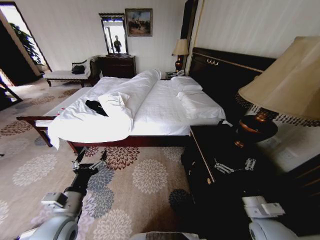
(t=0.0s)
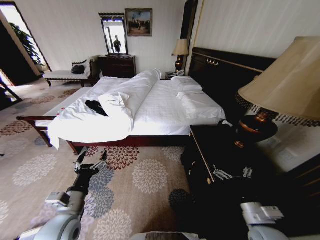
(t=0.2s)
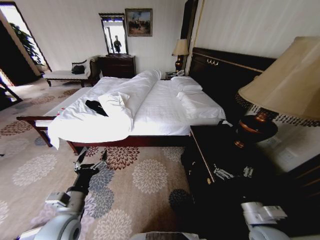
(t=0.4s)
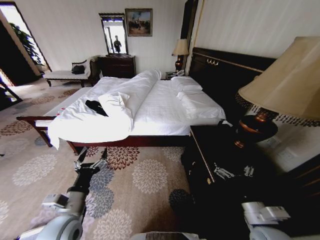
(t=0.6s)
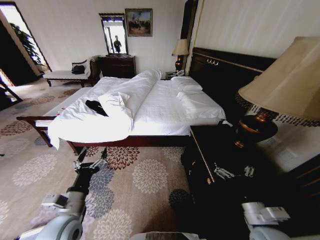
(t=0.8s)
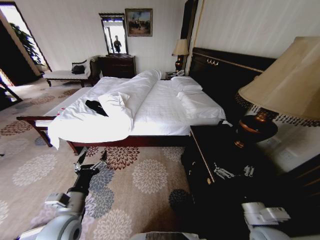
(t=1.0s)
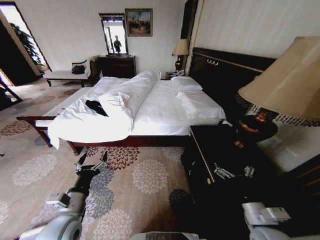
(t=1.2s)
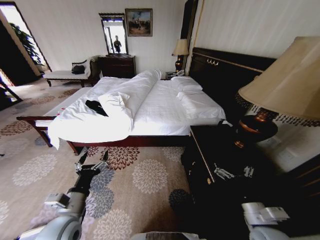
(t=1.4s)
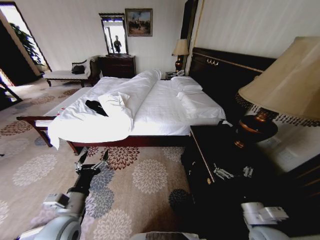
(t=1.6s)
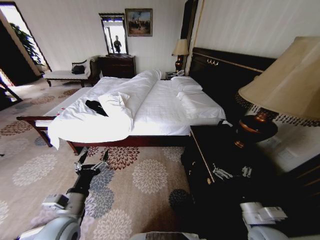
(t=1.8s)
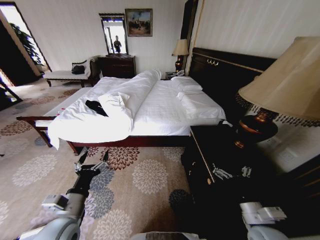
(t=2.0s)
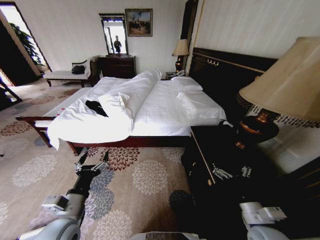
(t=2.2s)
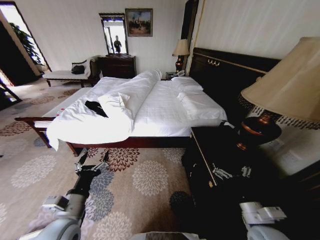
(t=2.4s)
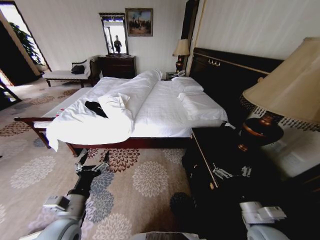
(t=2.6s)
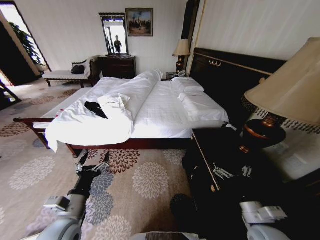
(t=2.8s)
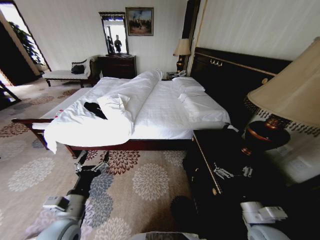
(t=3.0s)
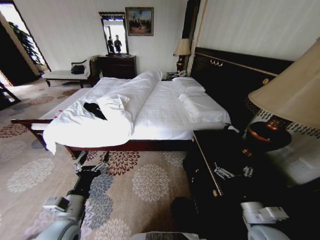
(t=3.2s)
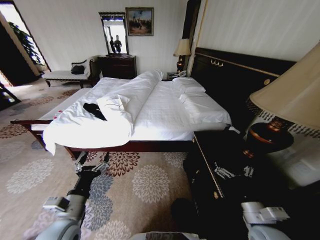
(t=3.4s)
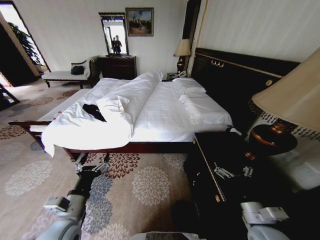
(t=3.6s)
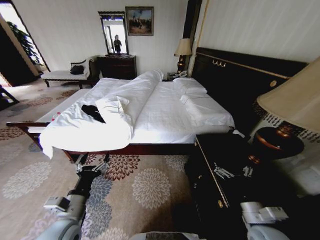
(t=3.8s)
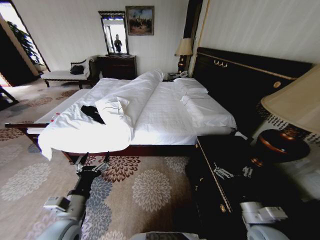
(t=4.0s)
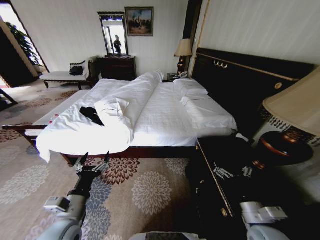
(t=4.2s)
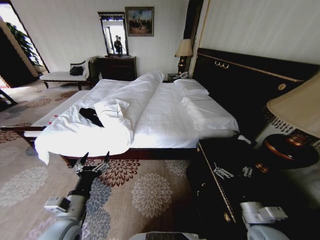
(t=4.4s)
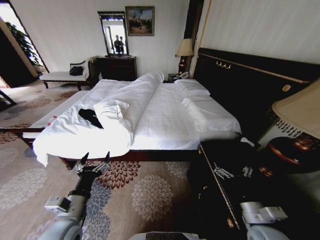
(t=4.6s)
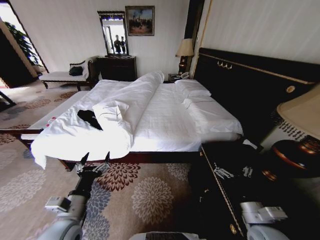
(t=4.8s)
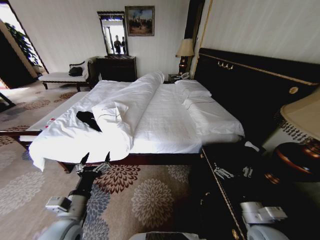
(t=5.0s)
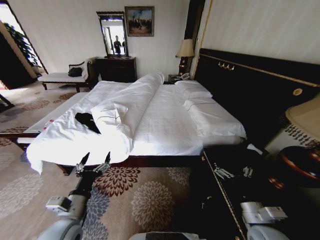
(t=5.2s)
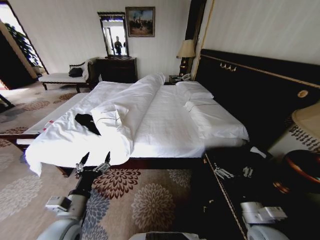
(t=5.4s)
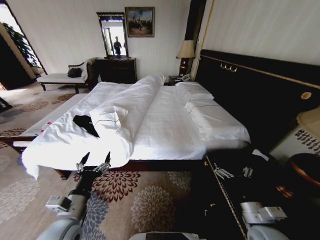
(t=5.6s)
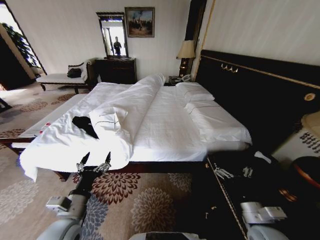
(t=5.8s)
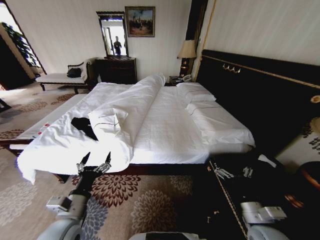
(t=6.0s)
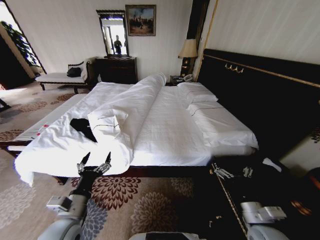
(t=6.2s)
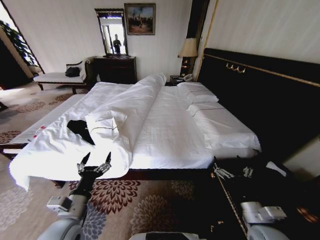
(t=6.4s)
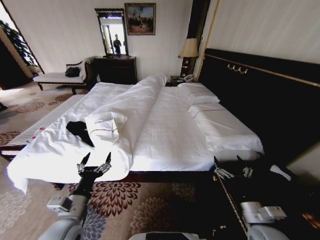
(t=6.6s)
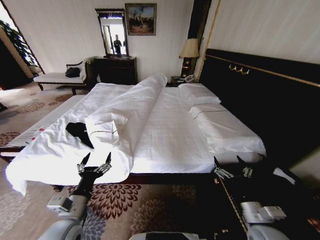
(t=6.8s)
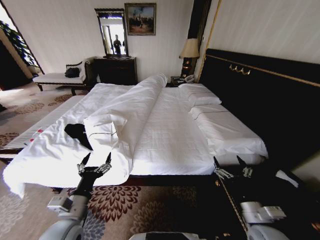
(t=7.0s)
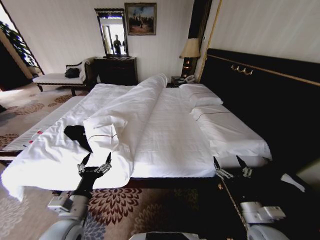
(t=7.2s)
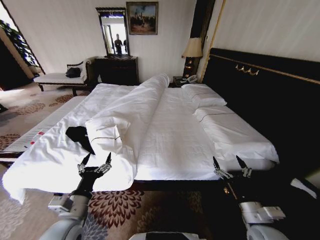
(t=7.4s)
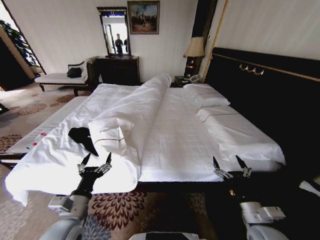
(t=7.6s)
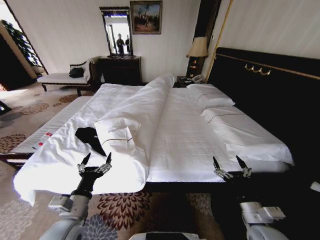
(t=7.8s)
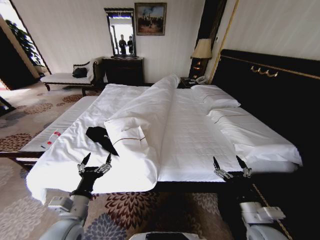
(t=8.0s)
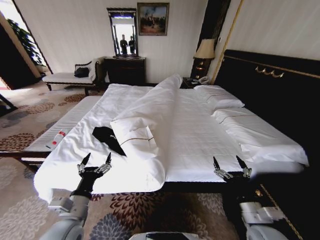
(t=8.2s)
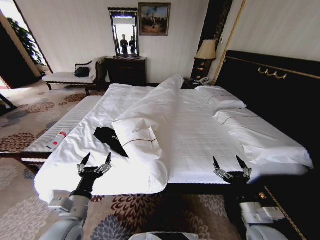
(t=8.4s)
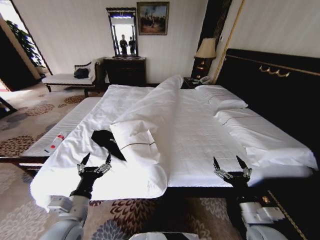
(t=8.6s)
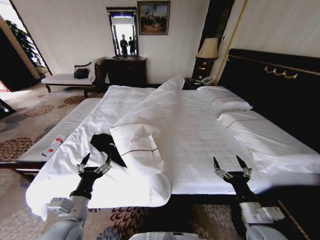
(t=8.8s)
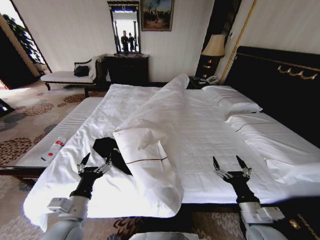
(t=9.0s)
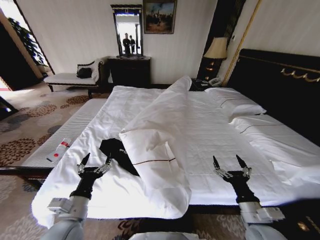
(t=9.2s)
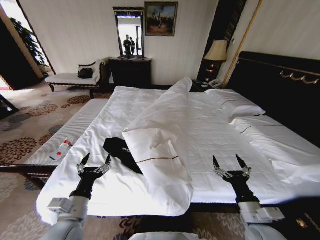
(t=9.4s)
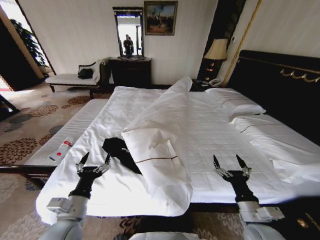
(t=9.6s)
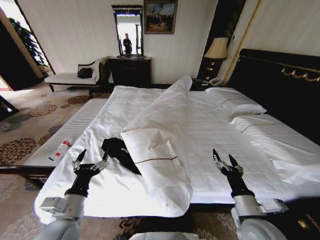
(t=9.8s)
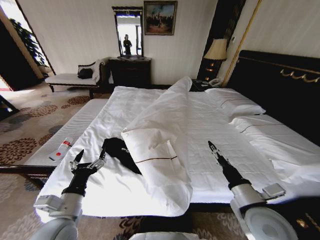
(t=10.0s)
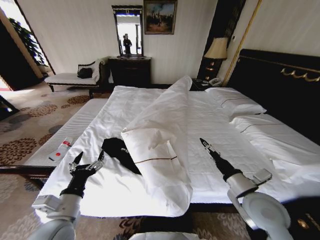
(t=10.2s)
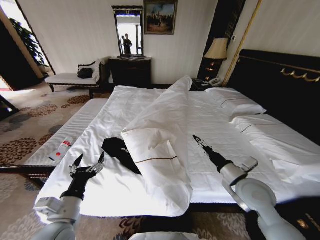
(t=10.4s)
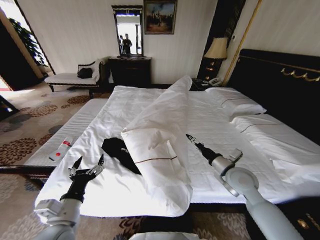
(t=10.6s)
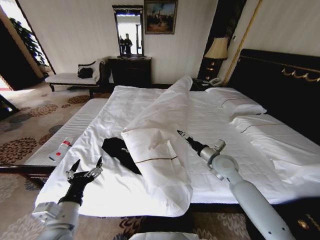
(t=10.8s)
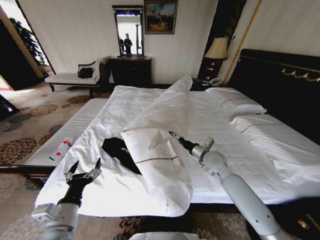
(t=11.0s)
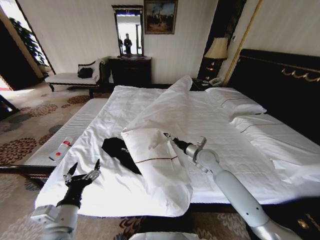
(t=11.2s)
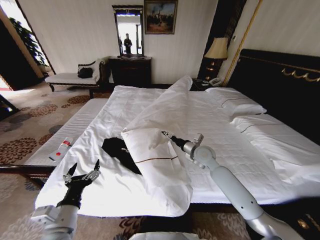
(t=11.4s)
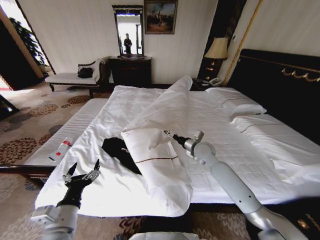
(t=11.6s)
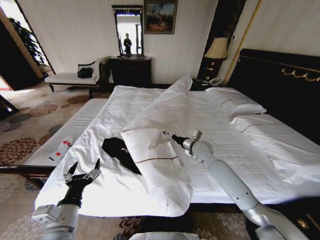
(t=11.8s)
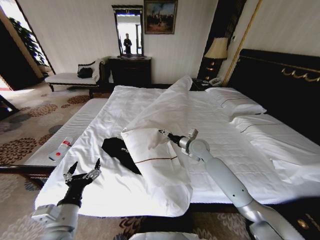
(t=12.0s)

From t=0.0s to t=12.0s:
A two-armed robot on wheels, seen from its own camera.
Task of the whole recording: Fold the clothes on the bed.
From t=1.6s to t=3.0s: Neither gripper changes place.
From t=9.0s to t=10.4s: The right gripper moves forward and upward, approximately 15 cm.
From t=10.4s to t=12.0s: The right gripper is displaced forward and to the left by approximately 25 cm.

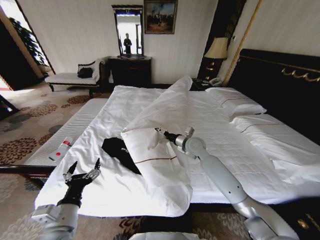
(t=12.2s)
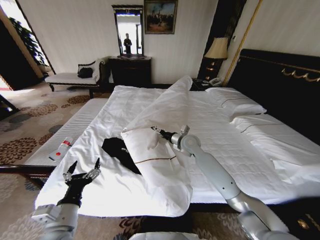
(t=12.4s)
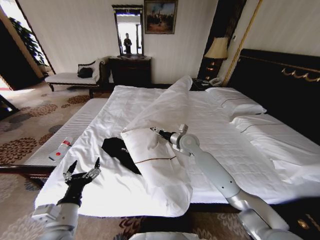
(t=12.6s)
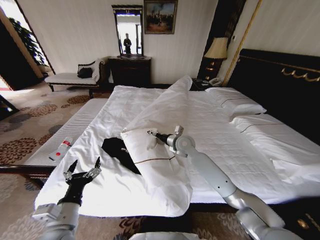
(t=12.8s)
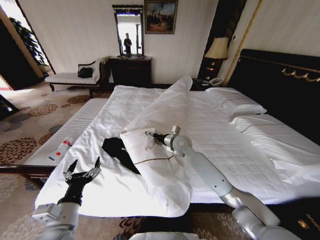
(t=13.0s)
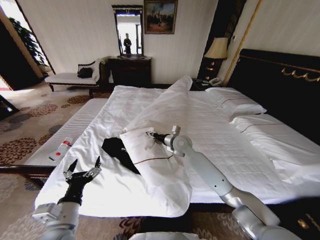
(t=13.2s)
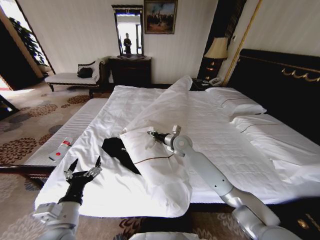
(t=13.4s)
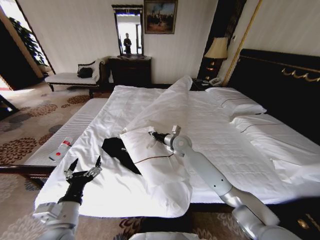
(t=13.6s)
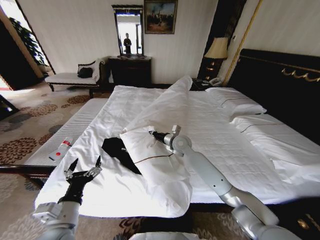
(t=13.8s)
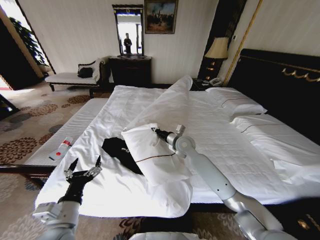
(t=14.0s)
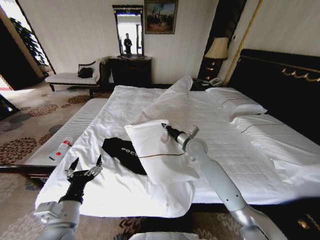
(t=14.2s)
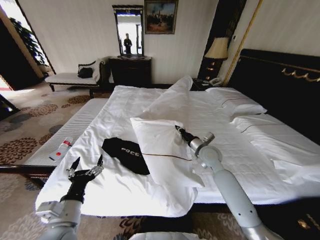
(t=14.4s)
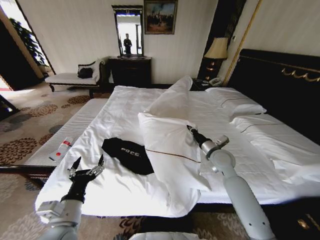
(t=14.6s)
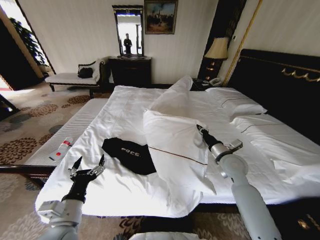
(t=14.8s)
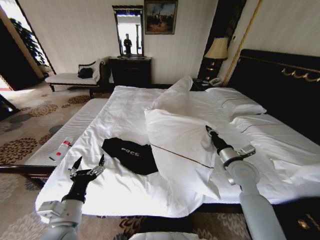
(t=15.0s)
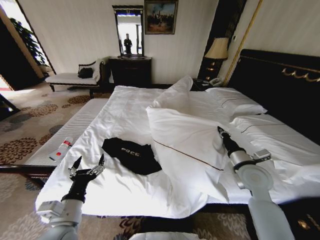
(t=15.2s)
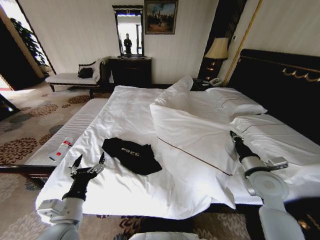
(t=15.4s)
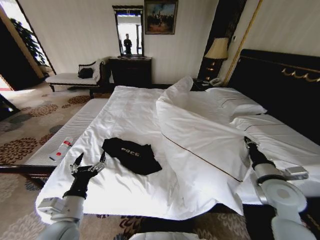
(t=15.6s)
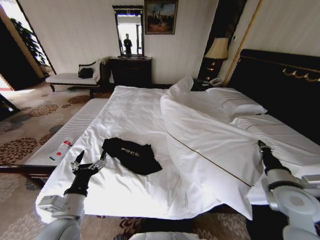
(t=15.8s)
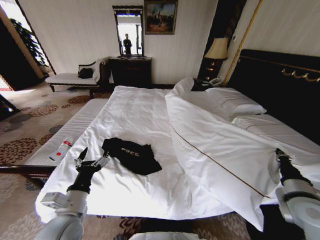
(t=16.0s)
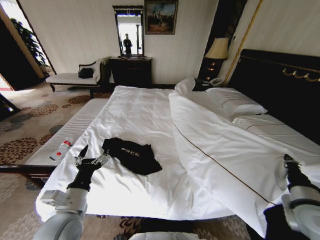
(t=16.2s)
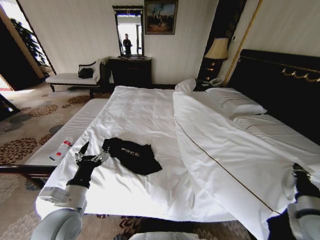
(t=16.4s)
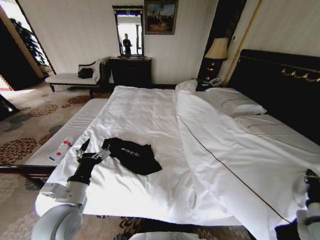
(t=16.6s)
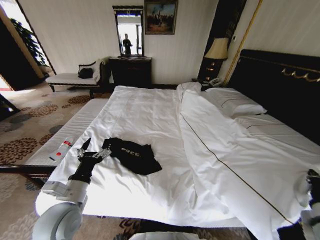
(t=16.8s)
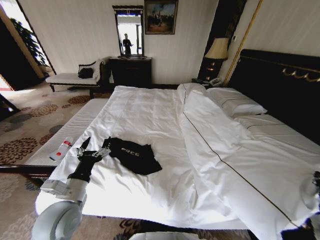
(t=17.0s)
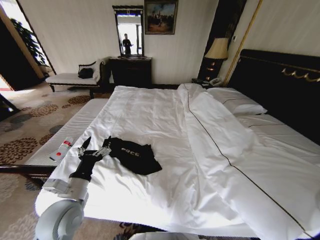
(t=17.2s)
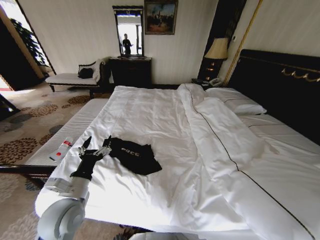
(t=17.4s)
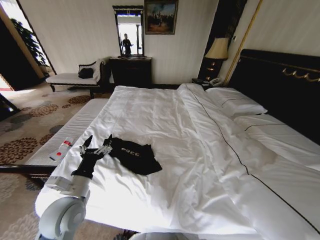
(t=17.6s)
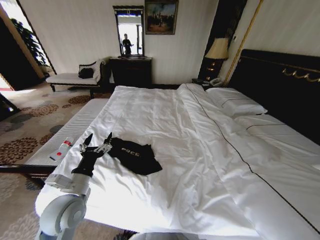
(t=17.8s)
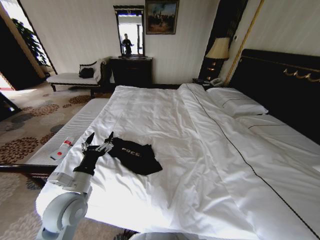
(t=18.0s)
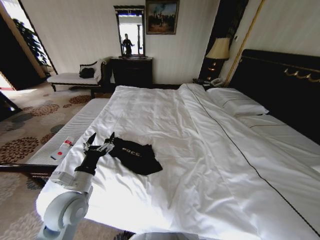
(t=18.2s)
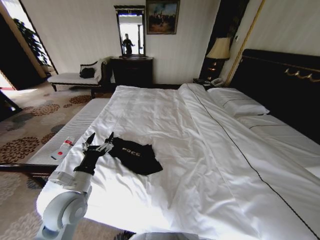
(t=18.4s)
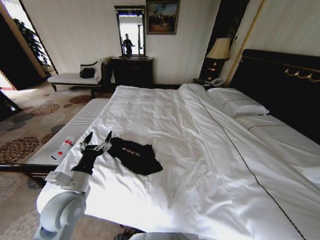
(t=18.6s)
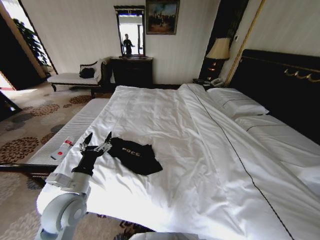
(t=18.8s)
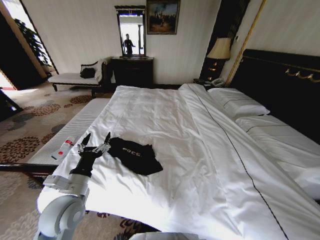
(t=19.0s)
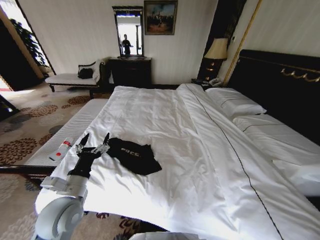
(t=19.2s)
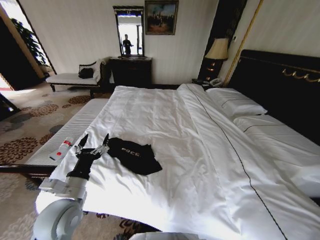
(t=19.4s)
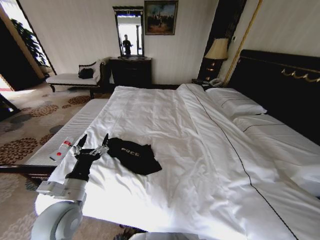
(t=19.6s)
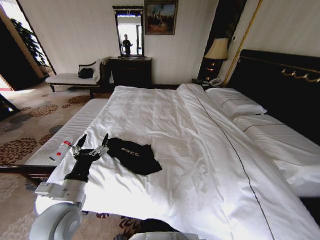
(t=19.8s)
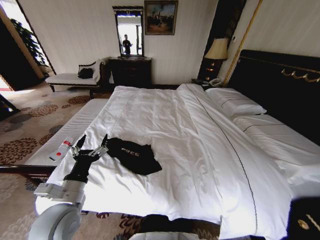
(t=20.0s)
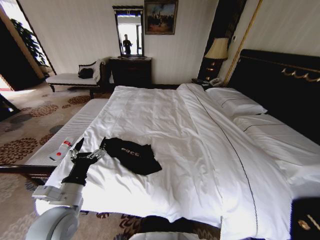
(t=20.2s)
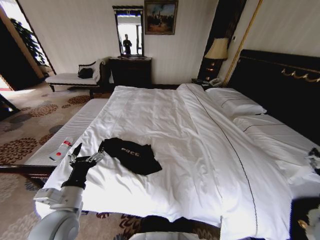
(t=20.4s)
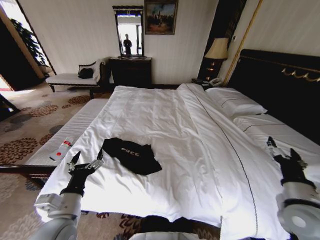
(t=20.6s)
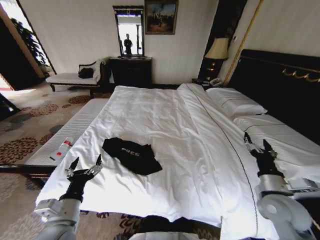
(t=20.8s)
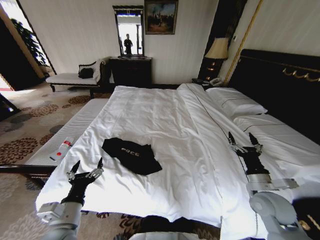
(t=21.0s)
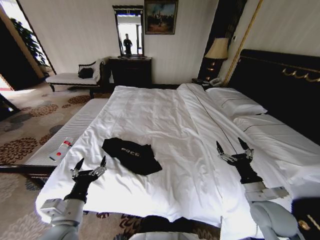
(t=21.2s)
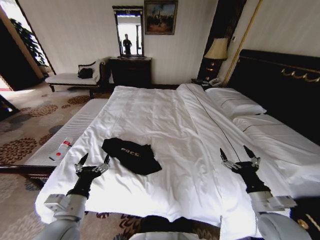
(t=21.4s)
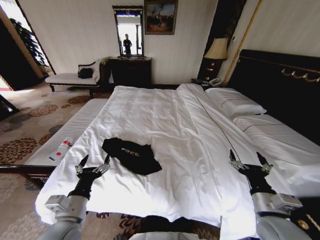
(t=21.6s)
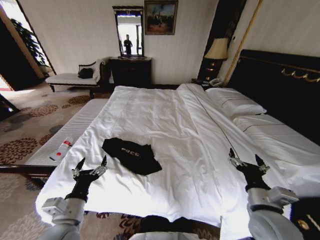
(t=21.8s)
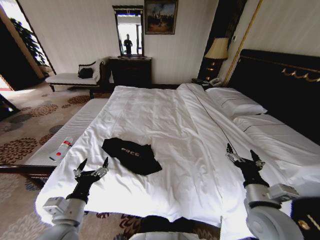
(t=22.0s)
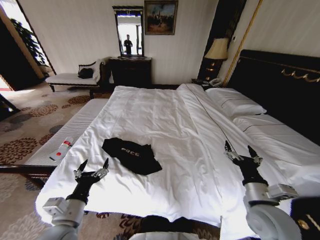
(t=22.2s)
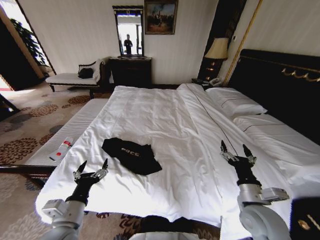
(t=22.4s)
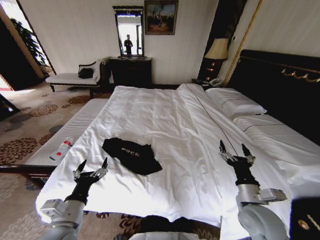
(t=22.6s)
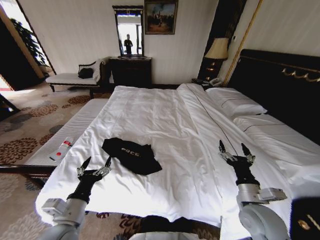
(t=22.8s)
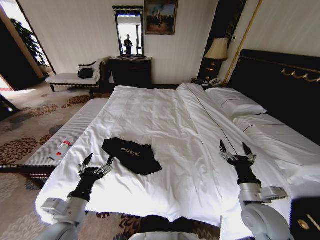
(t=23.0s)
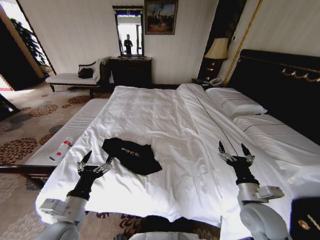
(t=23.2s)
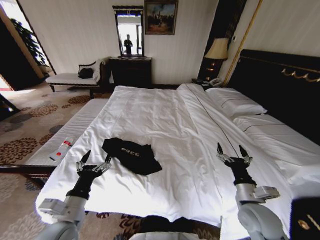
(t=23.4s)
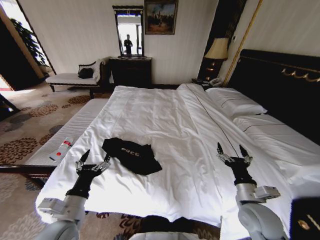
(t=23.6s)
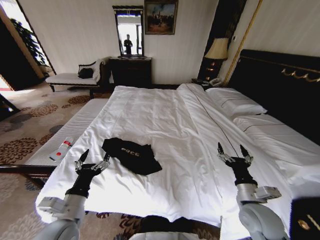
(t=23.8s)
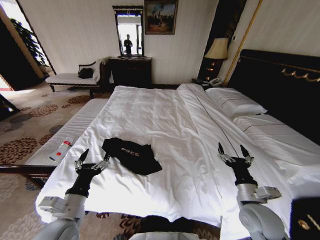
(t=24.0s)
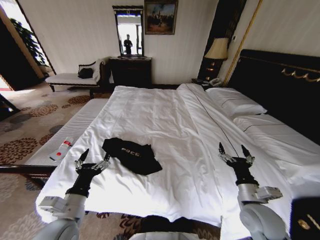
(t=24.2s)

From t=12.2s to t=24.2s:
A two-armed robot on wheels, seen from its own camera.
Task of the whole recording: Fold the clothes on the bed.
From t=12.2s to t=13.8s: The right gripper shifts about 5 cm to the left, and closes up.
From t=13.8s to t=15.2s: The right gripper travels to the right and backward by about 30 cm.
From t=15.2s to t=16.6s: The right gripper goes some 20 cm backward and to the right.
From t=16.6s to t=18.2s: The right gripper is displaced backward by roughly 10 cm.
From t=18.2s to t=19.8s: The right gripper reaches approximately 10 cm downward, then returns, and opens its fingers.
From t=19.8s to t=21.2s: The left gripper moves roughly 5 cm. The right gripper goes roughly 20 cm forward, downward and to the left.
From t=21.2s to t=22.6s: The right gripper shifts about 5 cm to the left.
From t=22.6s to t=24.2s: The grippers make only small movements.
